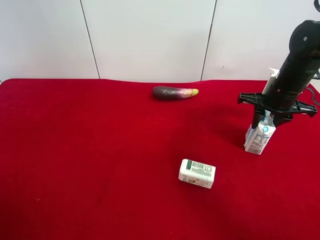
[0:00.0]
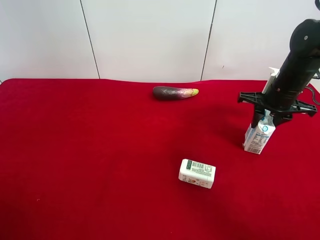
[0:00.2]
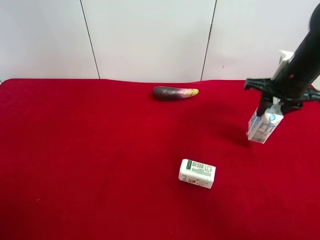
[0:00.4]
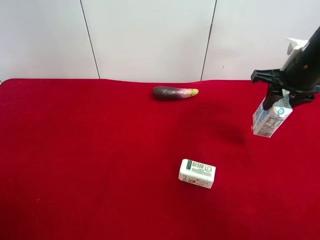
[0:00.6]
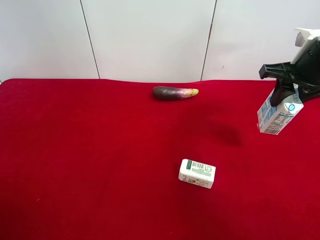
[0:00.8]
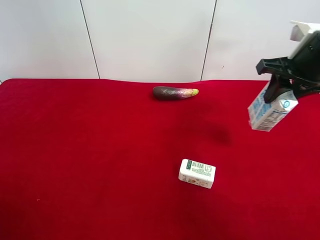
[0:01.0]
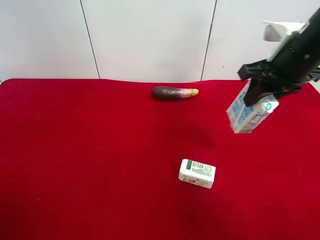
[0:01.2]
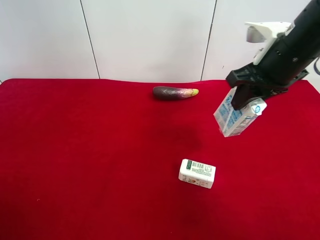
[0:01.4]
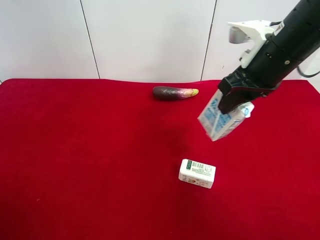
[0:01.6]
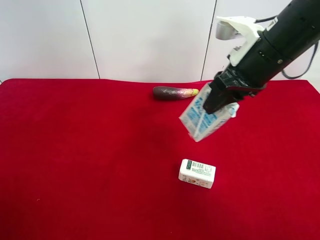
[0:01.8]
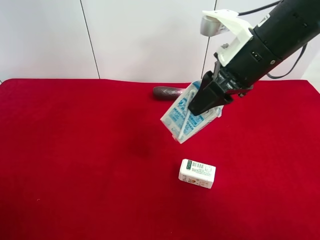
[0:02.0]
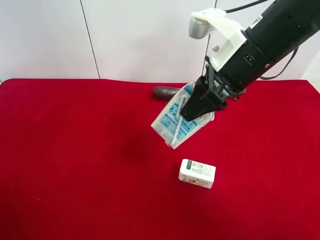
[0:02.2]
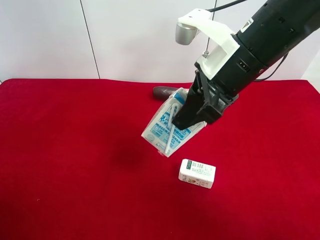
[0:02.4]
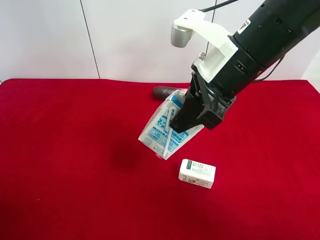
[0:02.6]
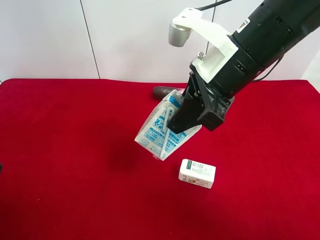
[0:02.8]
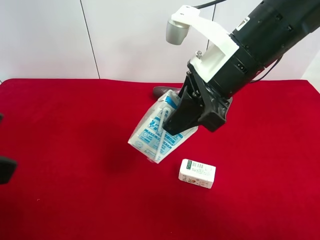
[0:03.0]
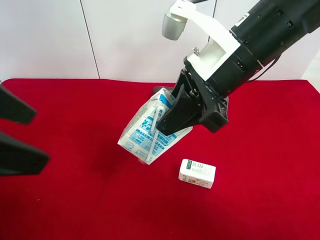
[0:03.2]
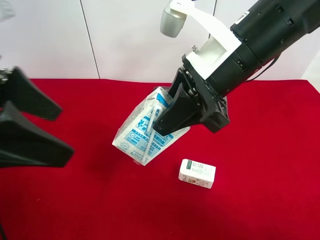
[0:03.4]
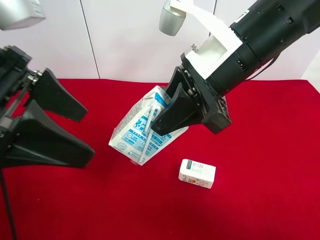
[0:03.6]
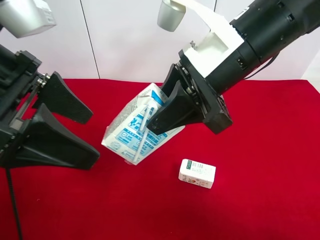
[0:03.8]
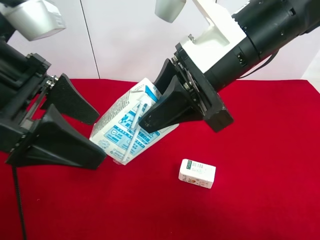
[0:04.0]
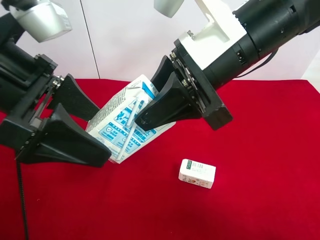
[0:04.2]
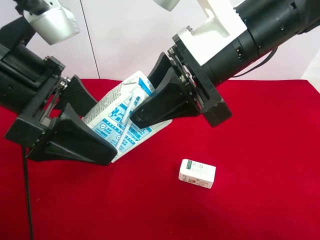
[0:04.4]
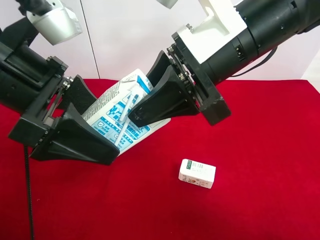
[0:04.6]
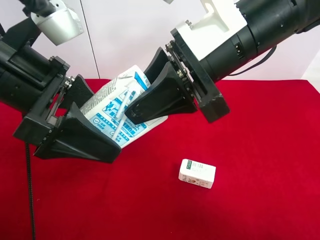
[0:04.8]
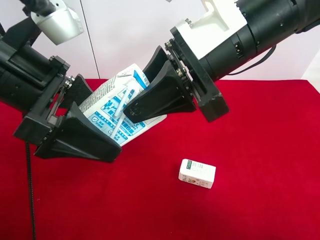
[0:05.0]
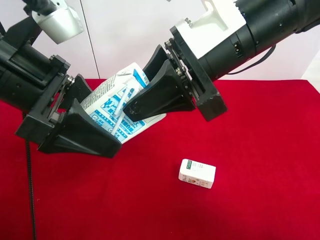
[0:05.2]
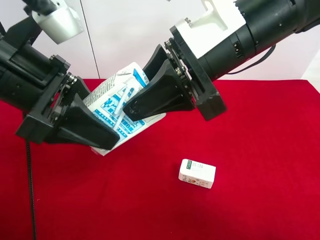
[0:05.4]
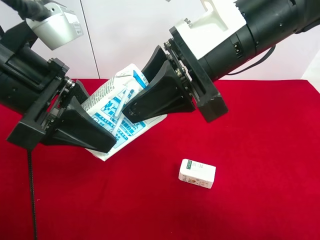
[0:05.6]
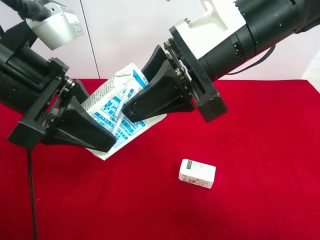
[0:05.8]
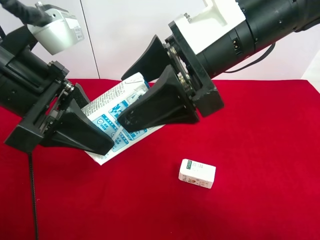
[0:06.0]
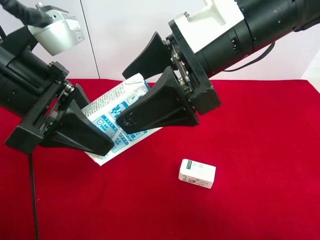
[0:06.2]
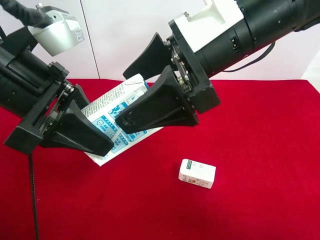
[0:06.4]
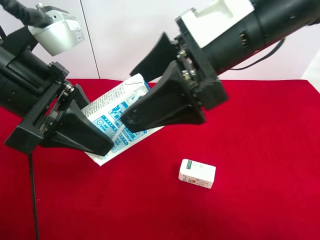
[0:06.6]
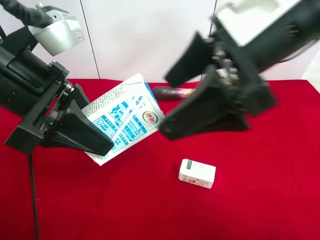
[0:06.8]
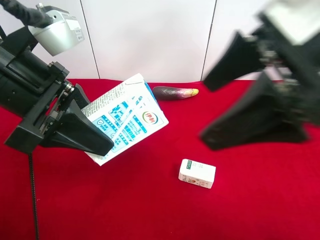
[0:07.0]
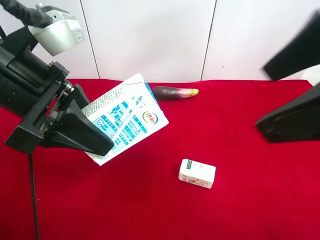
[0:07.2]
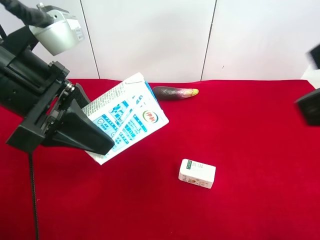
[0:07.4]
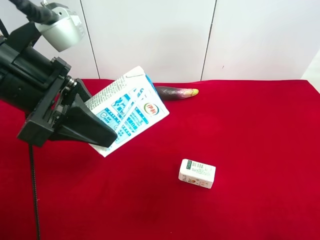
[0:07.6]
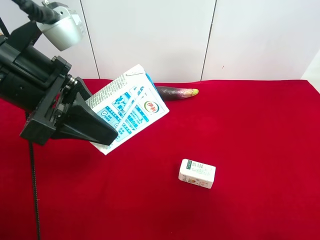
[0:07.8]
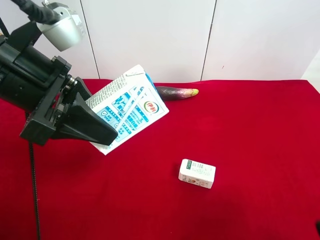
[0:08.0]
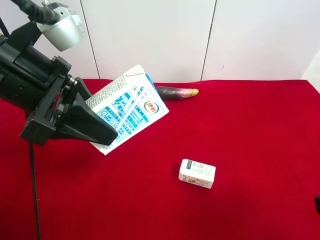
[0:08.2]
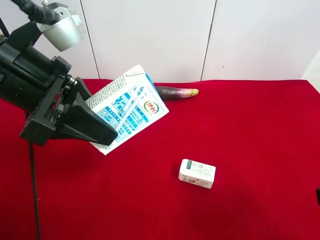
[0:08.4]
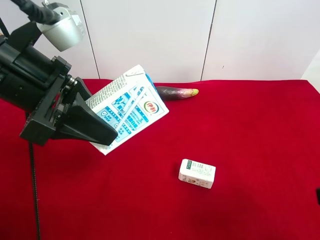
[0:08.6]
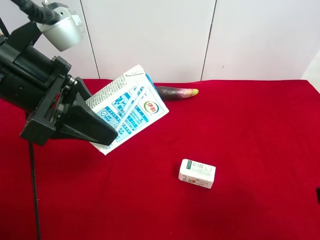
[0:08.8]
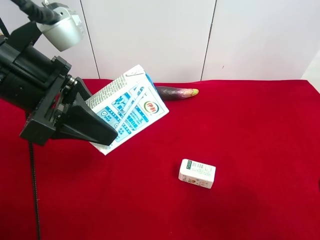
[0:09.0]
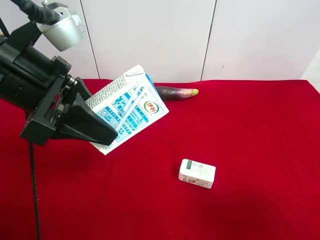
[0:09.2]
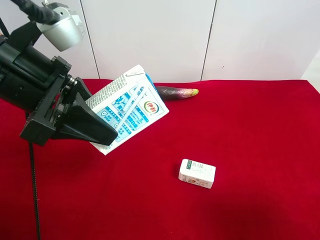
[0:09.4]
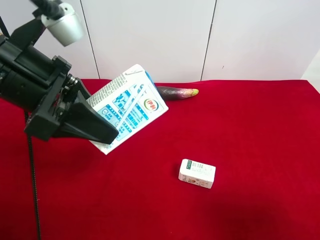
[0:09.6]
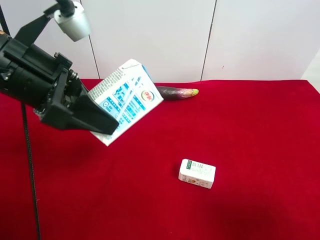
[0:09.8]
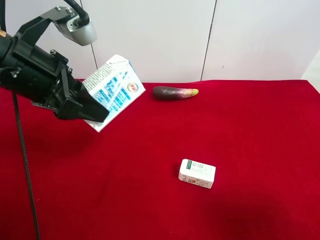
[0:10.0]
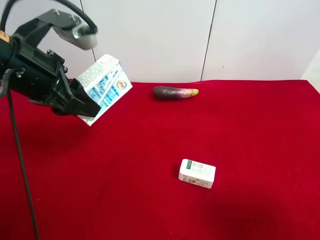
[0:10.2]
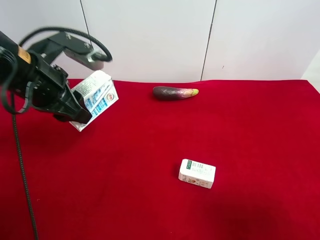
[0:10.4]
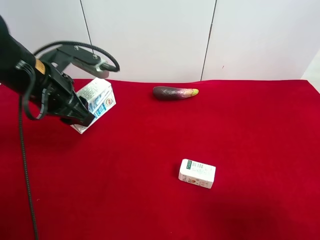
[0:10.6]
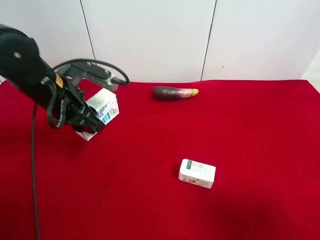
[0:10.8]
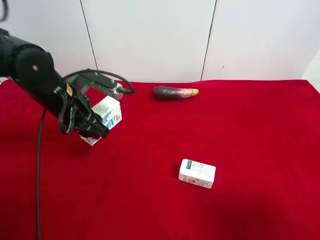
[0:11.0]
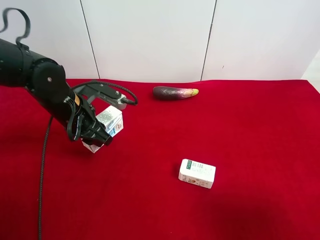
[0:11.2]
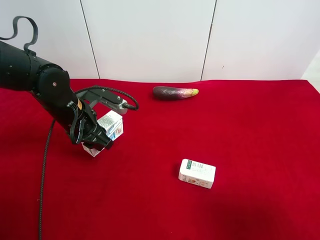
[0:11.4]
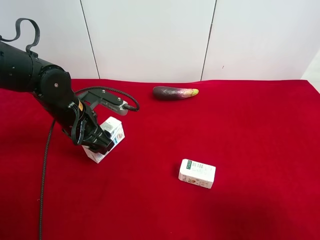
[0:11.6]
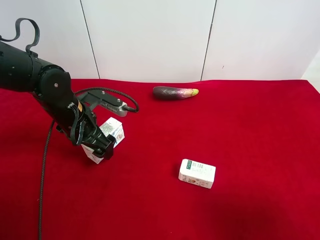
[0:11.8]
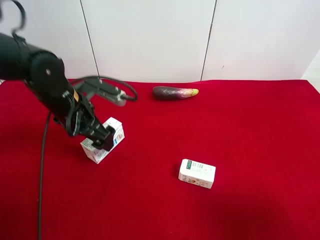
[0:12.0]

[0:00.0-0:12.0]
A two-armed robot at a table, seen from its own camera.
Task of the whole recording: use the right gripper to pick up the item and transfer it from the right gripper to the left gripper.
Step, 0:00.0 to 0:06.4: Pass the milk to the left gripper.
Step, 0:06.6 to 0:11.6: The left gripper places milk on the left side of the table.
0:00.0 to 0:01.6: The right gripper moves upward, to the left and backward, roughly 15 cm.
0:01.6 to 0:03.0: The right gripper shifts some 5 cm to the left, while the left gripper goes approximately 15 cm forward, to the right and upward.
0:03.0 to 0:04.4: The left gripper is displaced forward and to the right by approximately 10 cm.
0:04.4 to 0:06.0: The left gripper closes, while the right gripper opens its fingers.
0:06.0 to 0:07.6: The right gripper goes about 25 cm backward and to the right.
0:07.6 to 0:09.0: The right gripper travels downward by some 10 cm.
0:09.0 to 0:10.4: The left gripper is displaced forward by about 5 cm.
0:10.4 to 0:12.0: The left gripper travels downward by about 10 cm, and opens up.

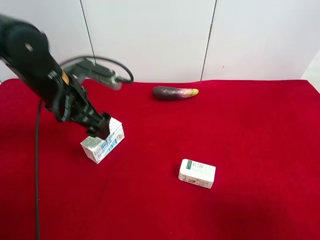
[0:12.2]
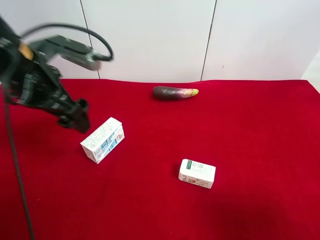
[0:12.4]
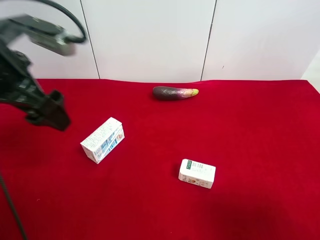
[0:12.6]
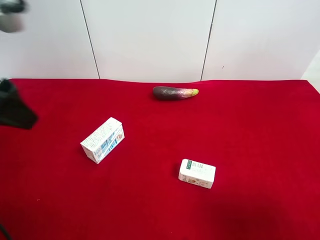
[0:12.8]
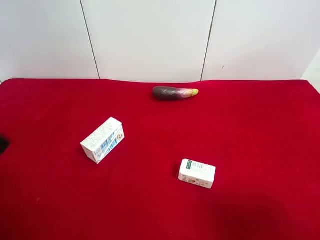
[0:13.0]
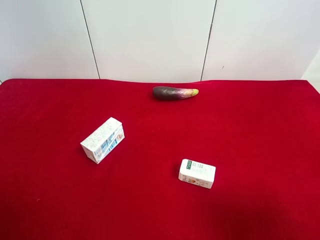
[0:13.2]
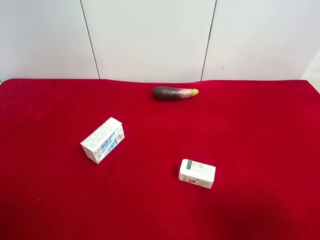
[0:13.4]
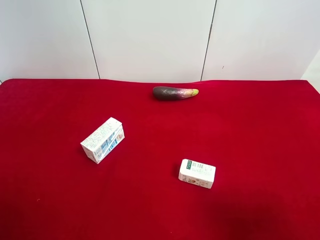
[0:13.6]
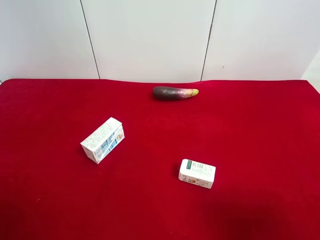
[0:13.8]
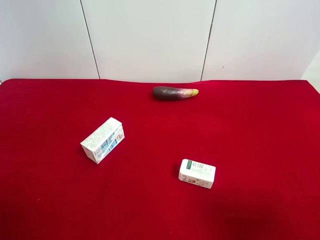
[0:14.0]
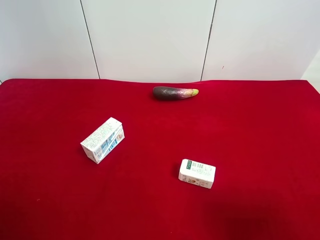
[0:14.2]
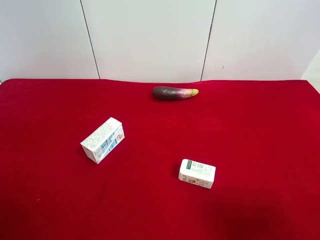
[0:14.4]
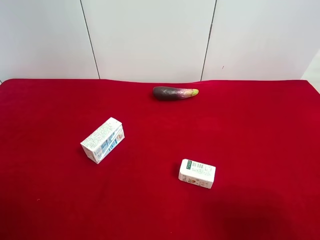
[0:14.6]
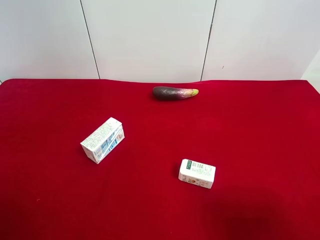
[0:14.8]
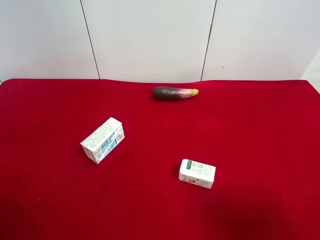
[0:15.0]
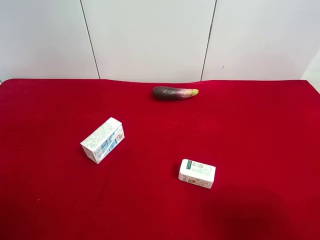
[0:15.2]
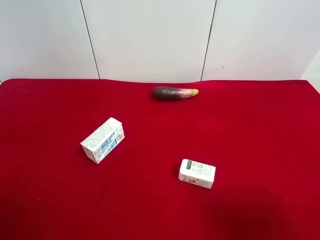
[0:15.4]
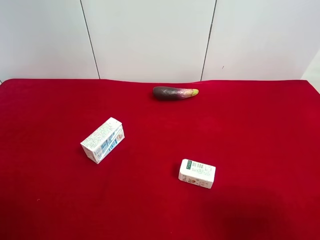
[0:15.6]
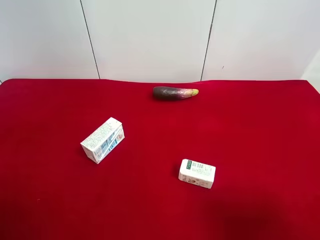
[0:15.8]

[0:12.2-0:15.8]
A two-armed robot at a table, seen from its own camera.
Task of the whole recording: use the right gripper to pick up the item and transfer it from the right gripper to the left gripper.
0:12.2 to 0:14.0: The left gripper is displaced backward and to the left by about 30 cm.
